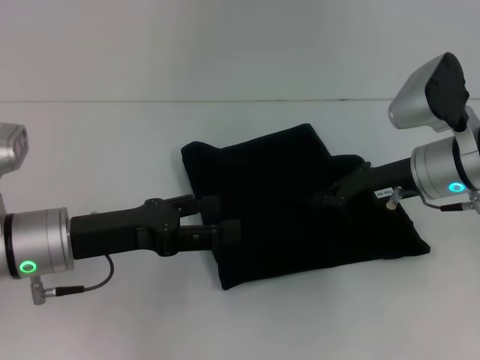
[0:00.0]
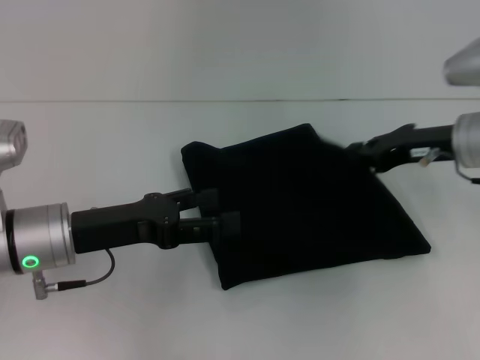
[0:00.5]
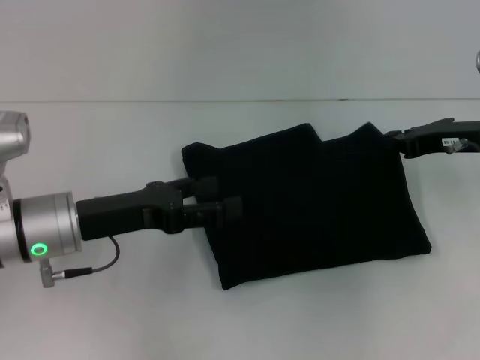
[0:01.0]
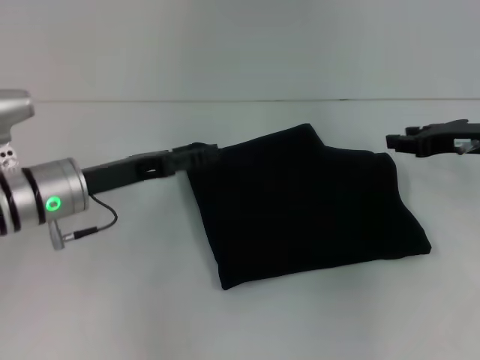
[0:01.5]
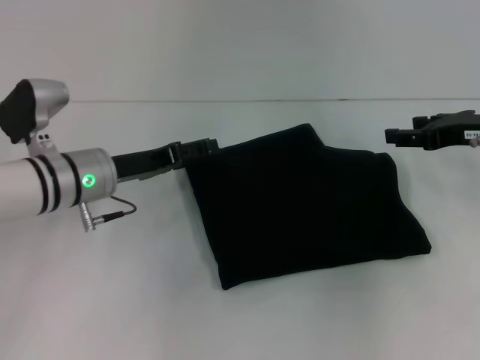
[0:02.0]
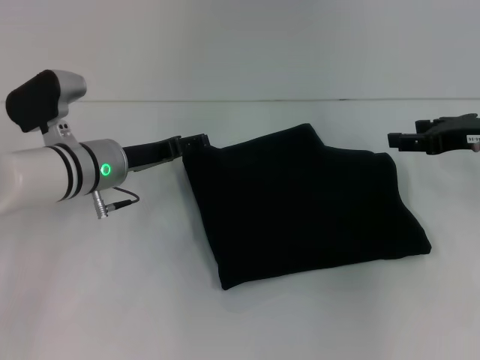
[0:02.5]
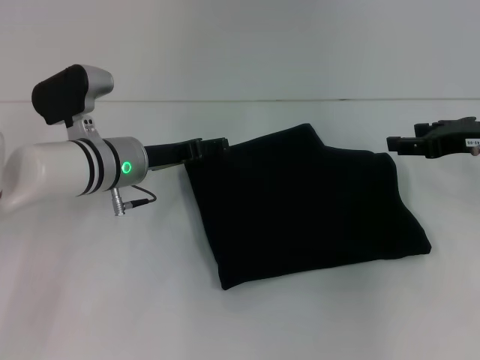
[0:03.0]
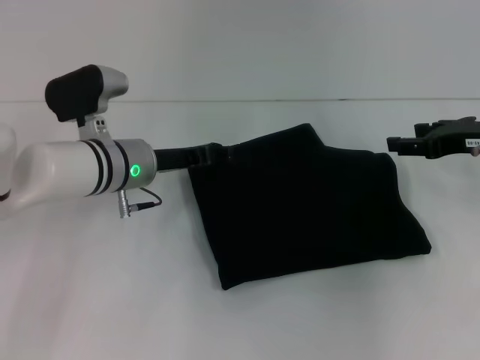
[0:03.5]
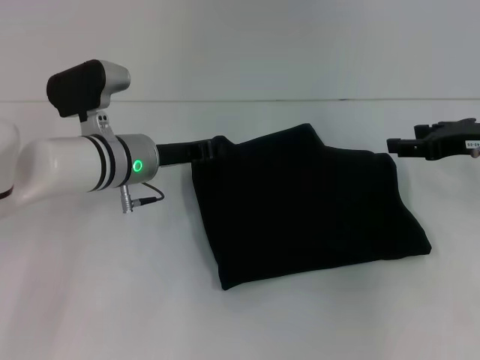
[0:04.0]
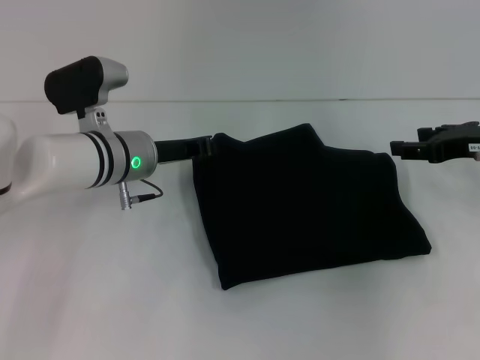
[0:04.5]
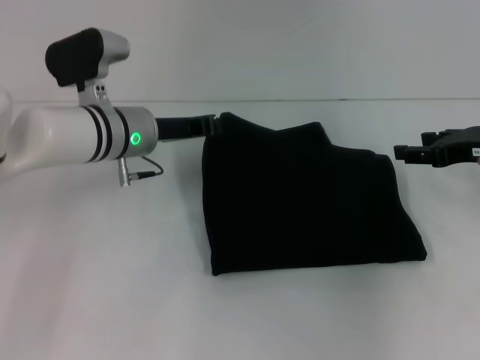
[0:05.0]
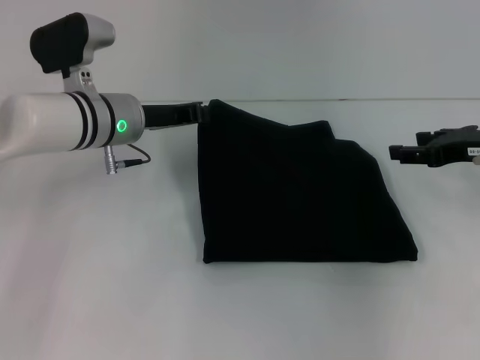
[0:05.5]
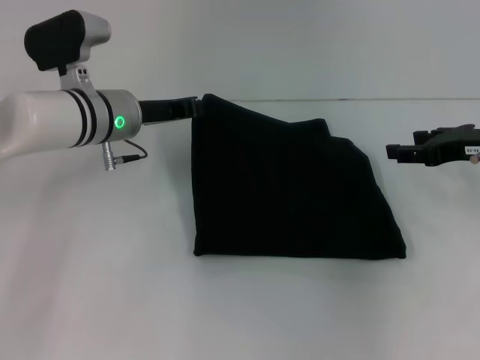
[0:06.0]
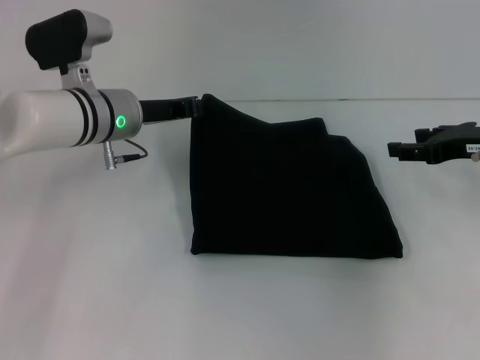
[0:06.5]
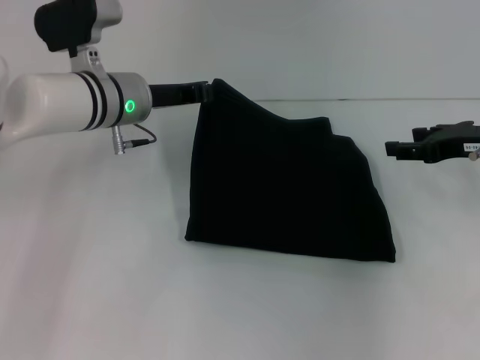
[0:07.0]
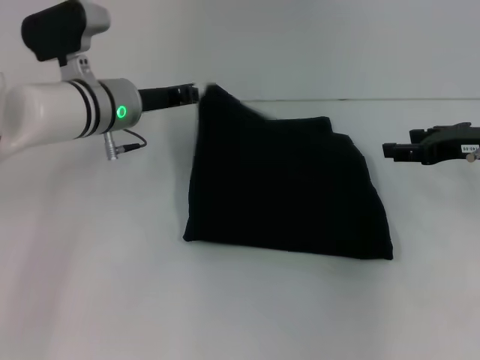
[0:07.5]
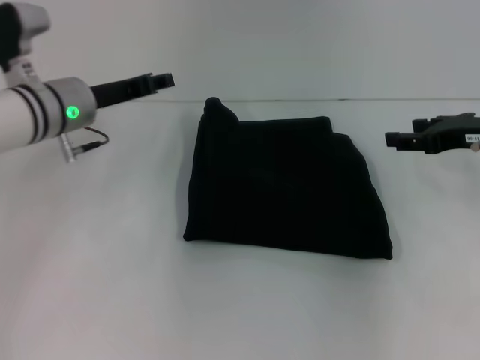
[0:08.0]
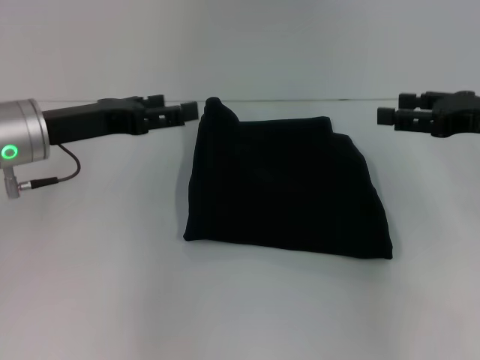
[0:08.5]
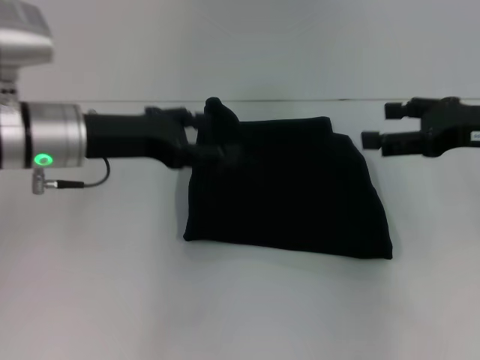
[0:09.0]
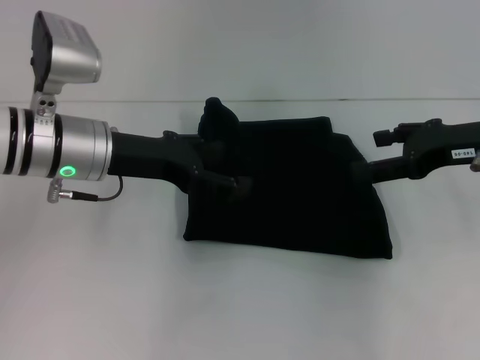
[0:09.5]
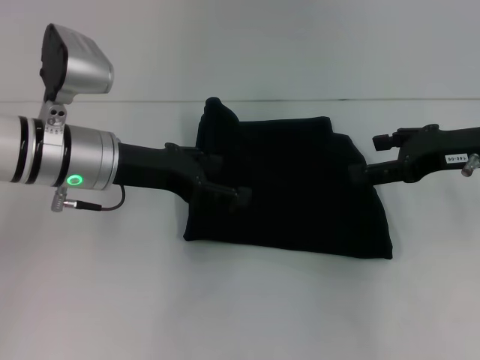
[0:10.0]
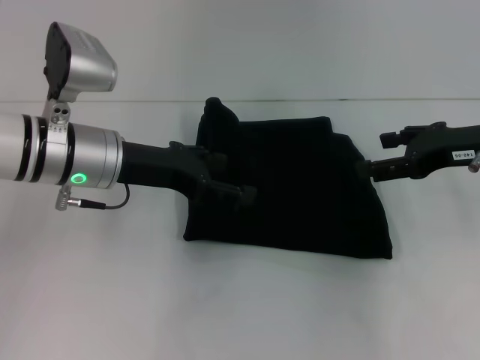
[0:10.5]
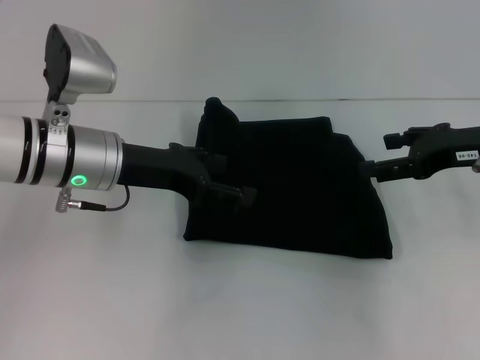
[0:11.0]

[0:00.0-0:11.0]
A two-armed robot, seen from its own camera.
0:00.0 to 0:02.0: The left gripper goes some 10 cm forward. The right gripper heads to the right, covering approximately 10 cm, and opens up.
0:02.0 to 0:03.5: The left gripper ends up about 5 cm from where it was.
0:03.5 to 0:05.5: The left gripper closes its fingers.
0:05.5 to 0:07.5: The grippers move only a little.
0:07.5 to 0:09.0: The left gripper heads backward, covering about 10 cm, and opens. The right gripper ends up approximately 5 cm from where it was.
0:09.0 to 0:11.0: The grippers stay close to where they were, moving slightly.
